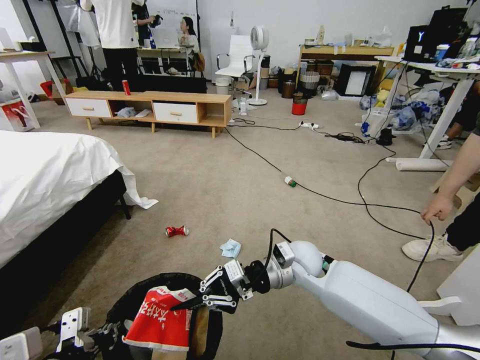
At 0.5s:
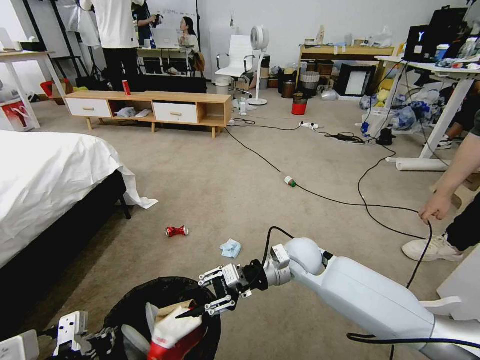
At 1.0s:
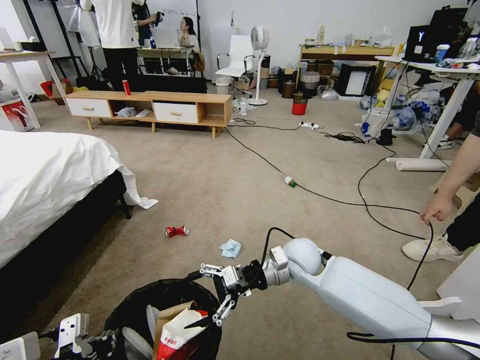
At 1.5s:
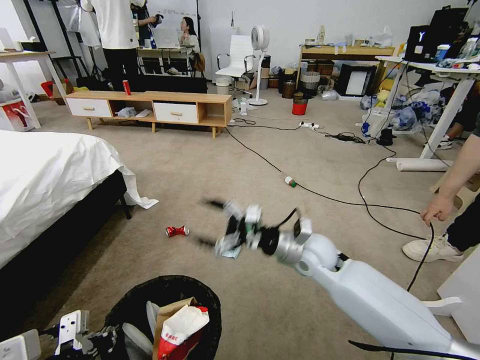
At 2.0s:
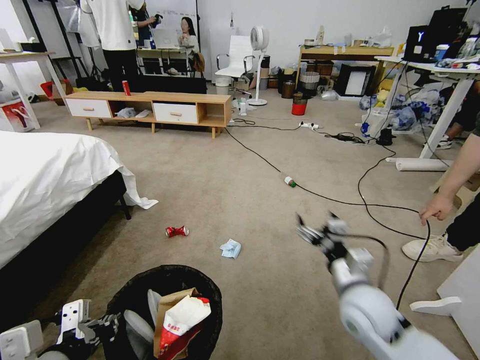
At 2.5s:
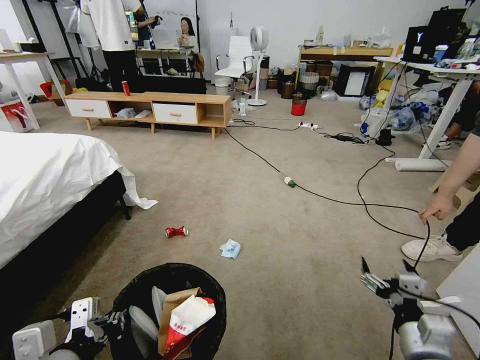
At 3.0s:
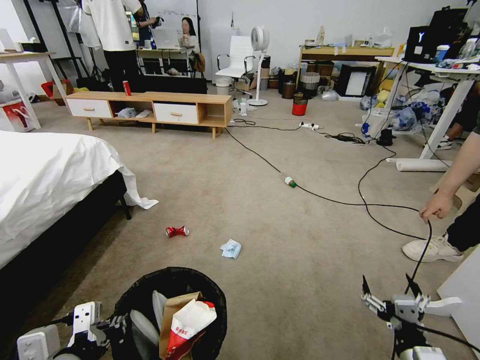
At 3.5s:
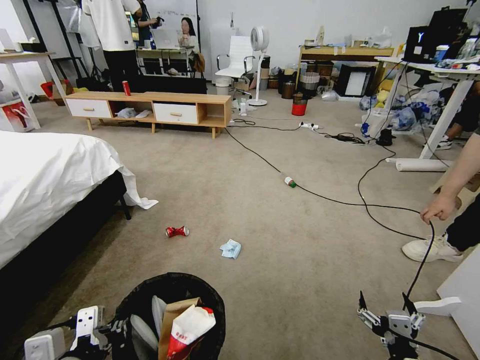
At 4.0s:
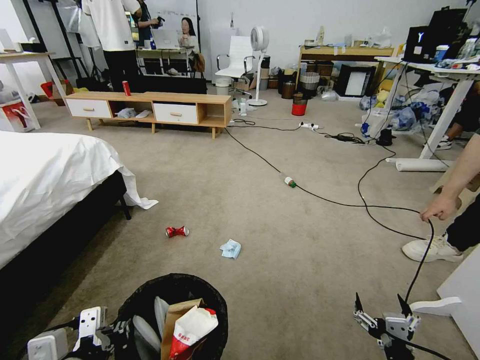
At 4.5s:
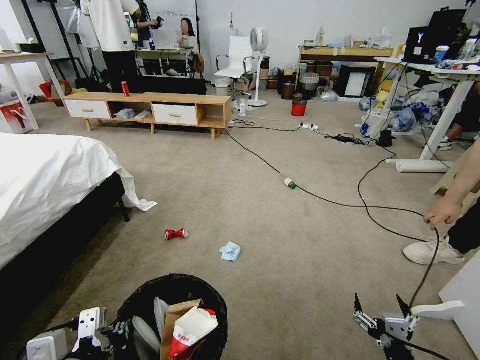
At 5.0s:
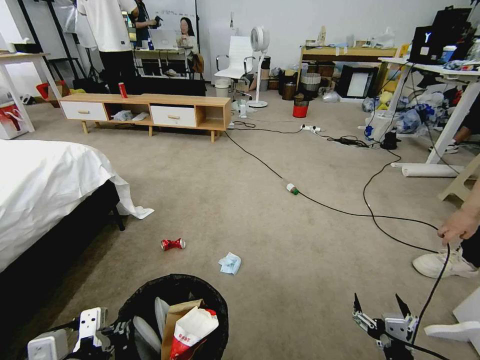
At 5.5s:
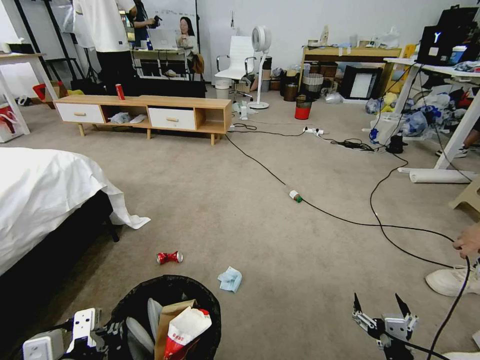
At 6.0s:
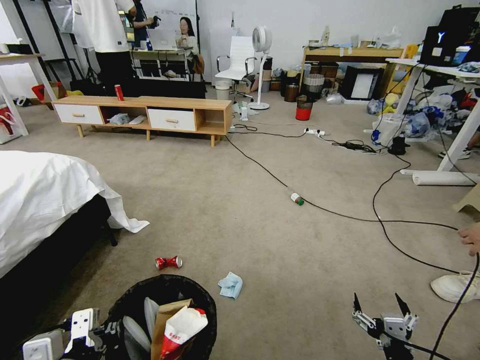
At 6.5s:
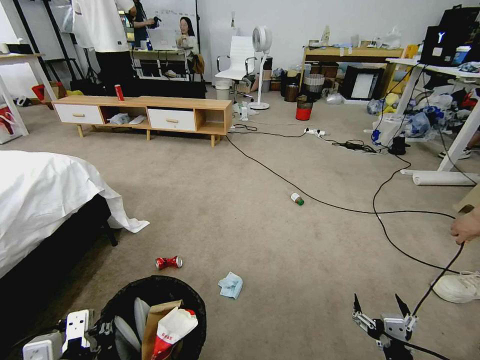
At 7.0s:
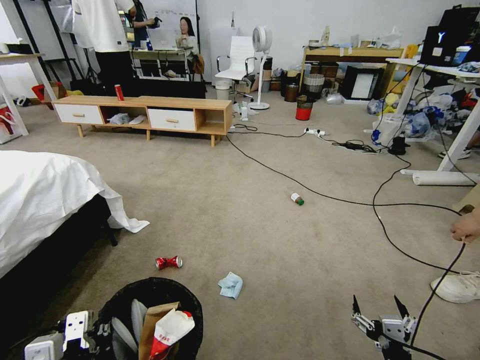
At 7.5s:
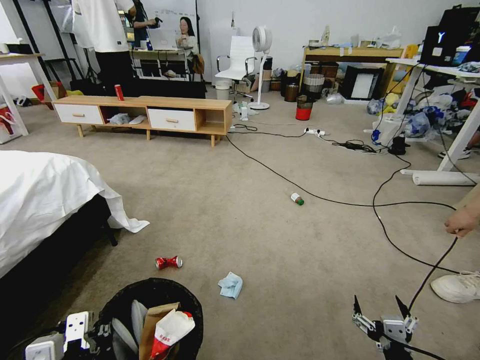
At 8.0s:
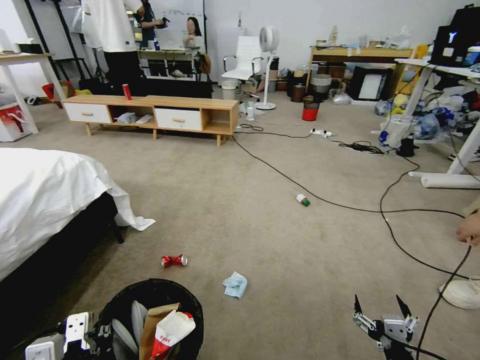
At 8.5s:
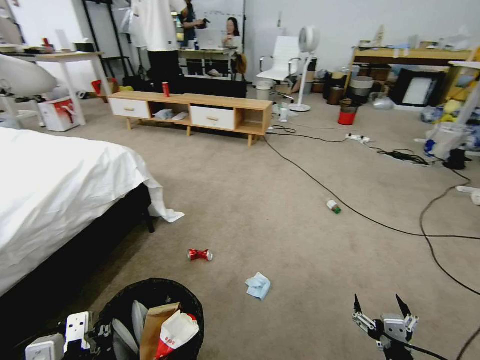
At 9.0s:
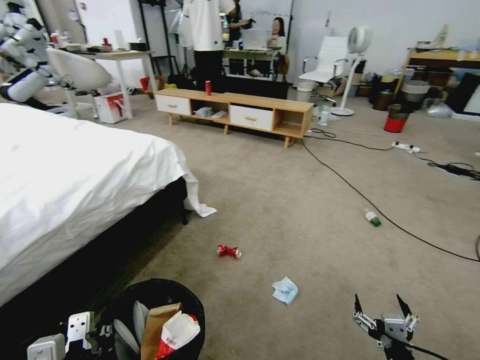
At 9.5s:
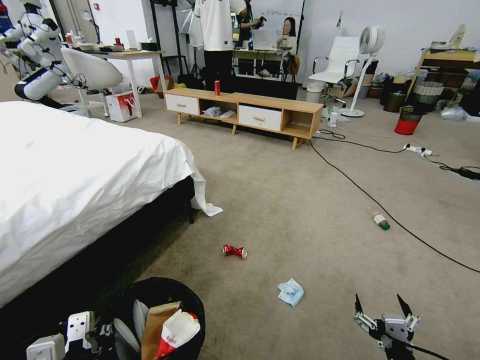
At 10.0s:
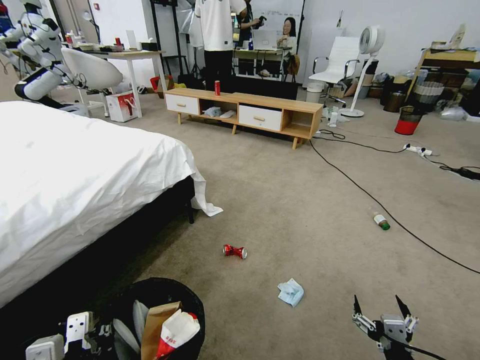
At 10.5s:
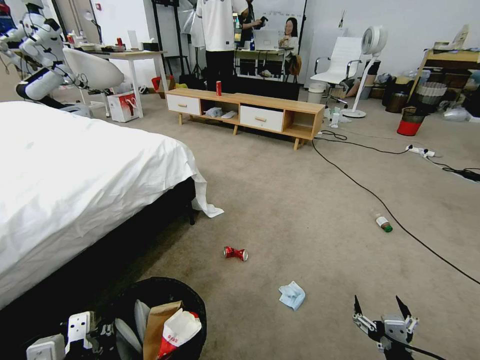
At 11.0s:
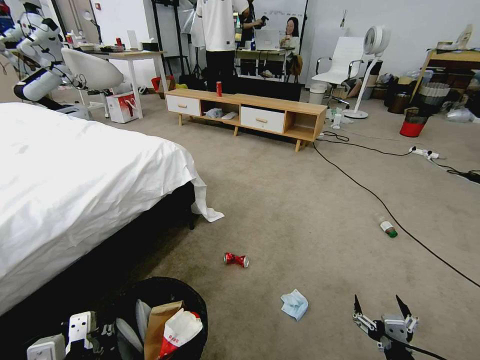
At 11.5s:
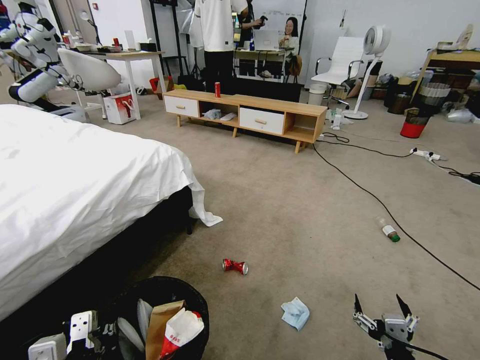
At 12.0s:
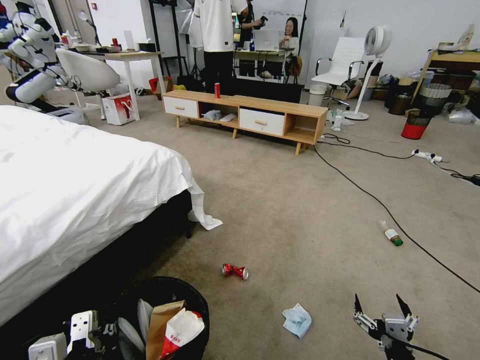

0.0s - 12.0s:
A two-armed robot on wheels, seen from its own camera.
Task of the whole recording: Pick up the trash bin and place the garbage on the floor into it.
0.0s - 2.0s: The right gripper goes about 15 cm to the right and backward, and opens.
2.0s - 4.0s: The right gripper moves backward, downward and to the right, approximately 20 cm.

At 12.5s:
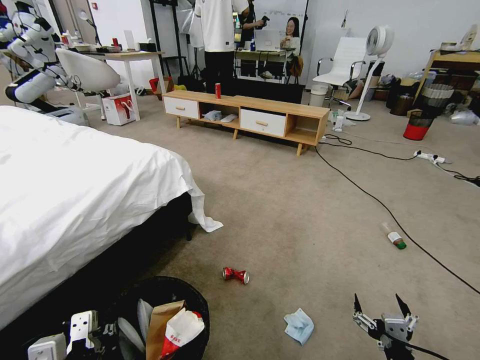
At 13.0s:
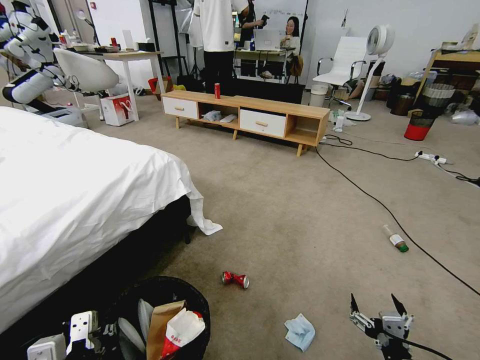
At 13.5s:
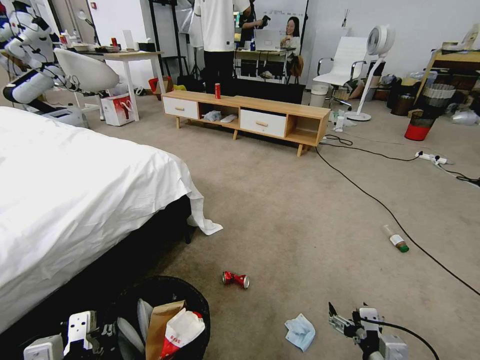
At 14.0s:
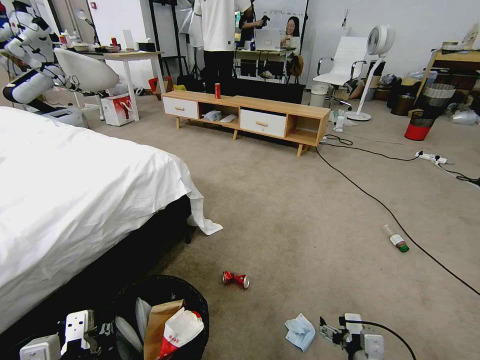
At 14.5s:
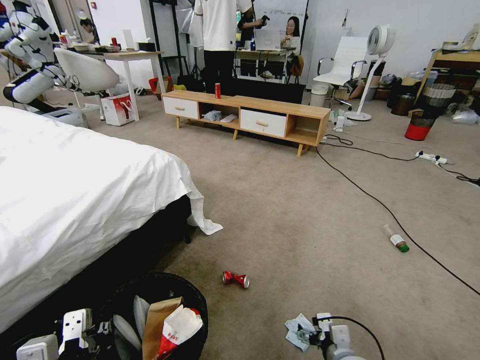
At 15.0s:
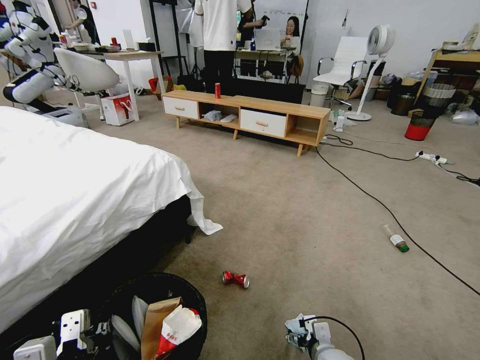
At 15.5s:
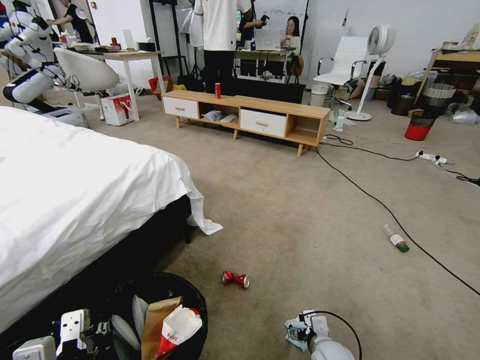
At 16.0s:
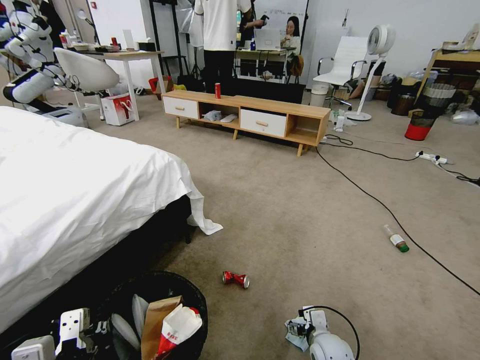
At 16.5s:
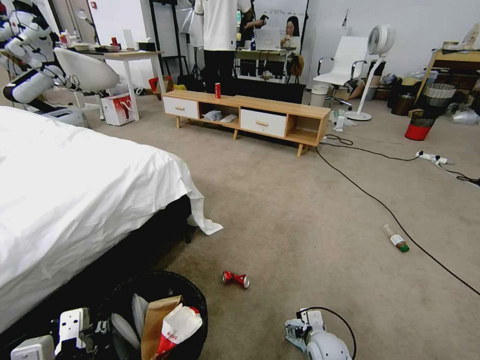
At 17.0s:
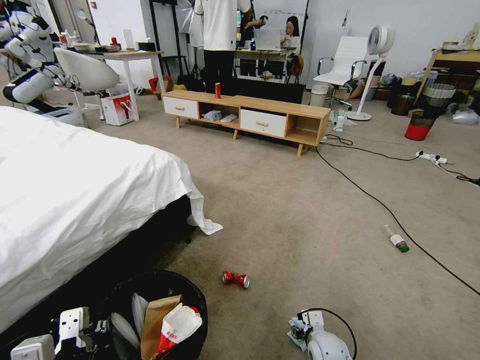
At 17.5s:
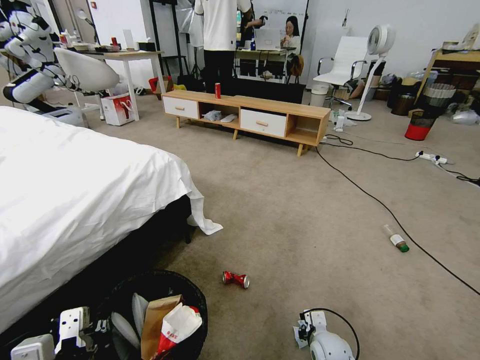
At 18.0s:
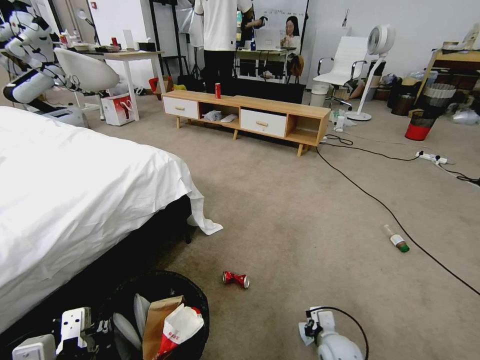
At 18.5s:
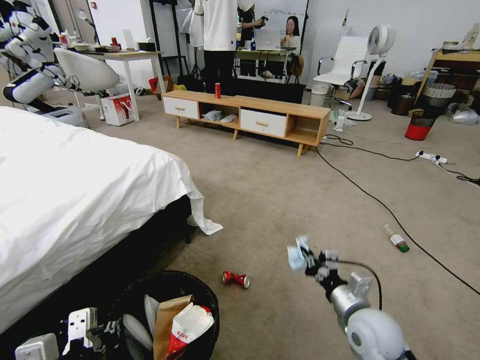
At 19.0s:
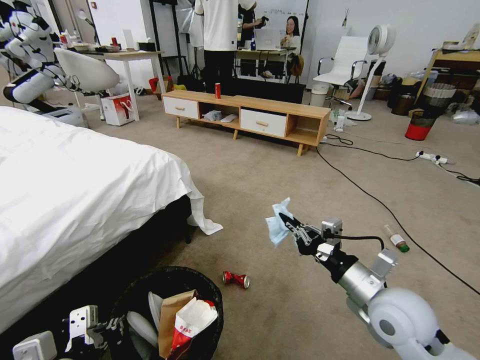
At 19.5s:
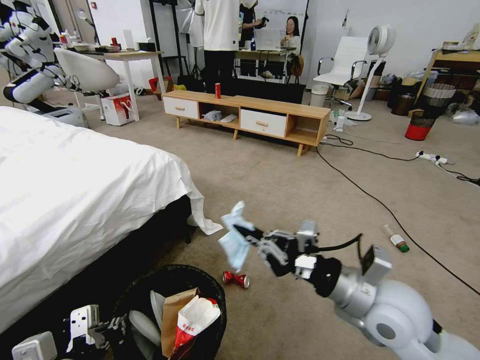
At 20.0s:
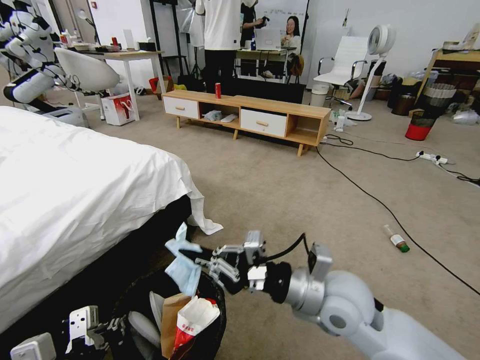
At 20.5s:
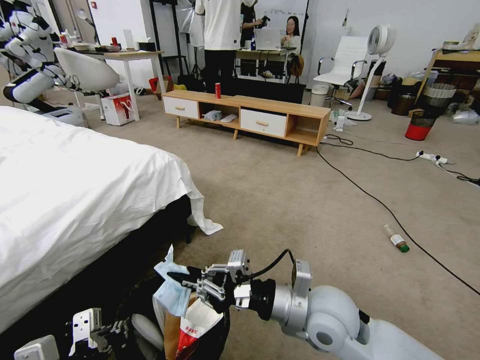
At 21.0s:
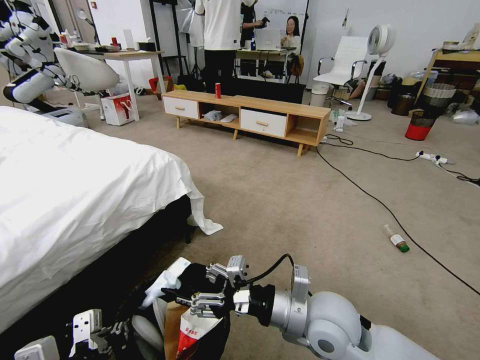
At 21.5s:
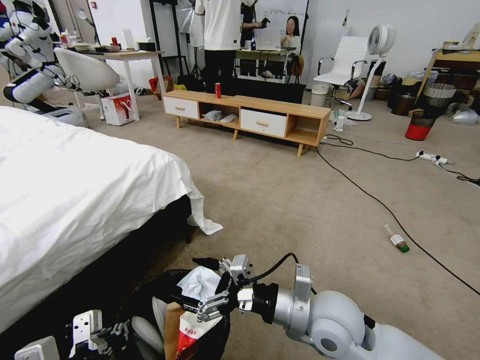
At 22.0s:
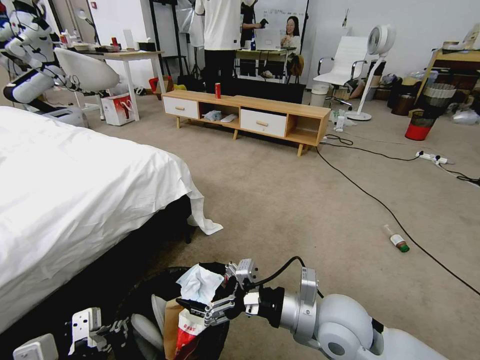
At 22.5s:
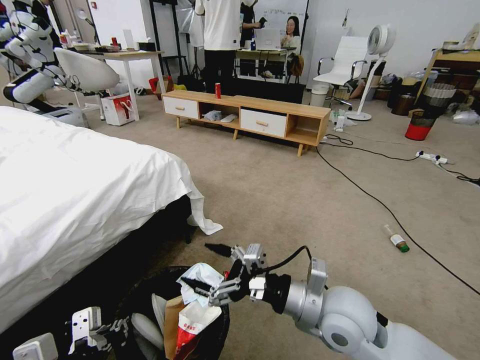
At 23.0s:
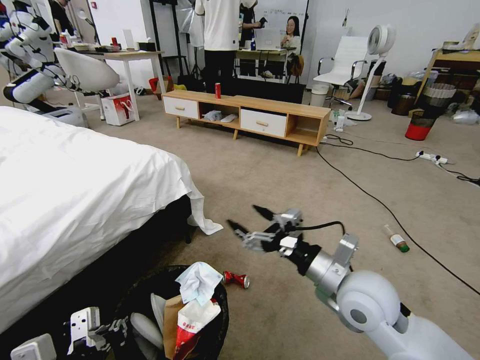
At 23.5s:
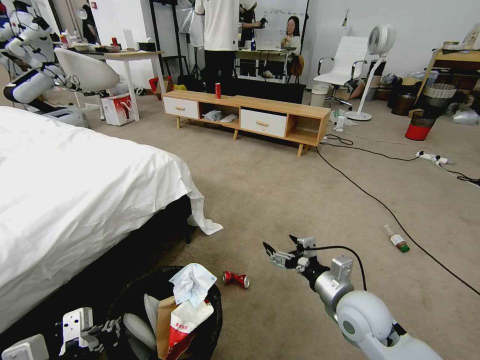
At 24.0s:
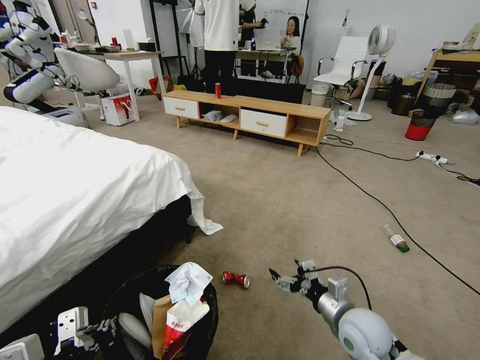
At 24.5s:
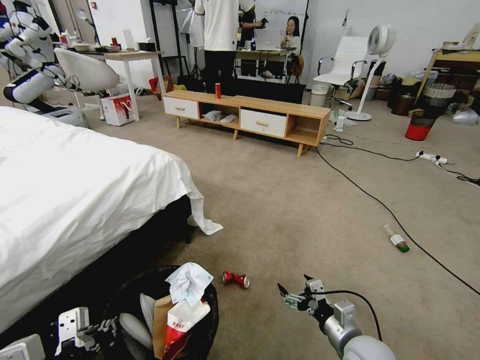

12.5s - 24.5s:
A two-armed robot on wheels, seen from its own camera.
Task of the whole recording: Pick up the trash bin and place the garbage on the floor into it.
12.5s - 14.5s: The right gripper travels forward, to the left and downward by roughly 15 cm.
14.5s - 16.5s: The right gripper is displaced forward and downward by roughly 10 cm.
16.5s - 18.5s: The right gripper shifts some 20 cm upward, and closes its fingers.
18.5s - 20.5s: The right gripper travels to the left and upward by some 15 cm.
20.5s - 22.5s: The right gripper opens.
22.5s - 24.5s: The right gripper travels downward and to the right by roughly 20 cm.

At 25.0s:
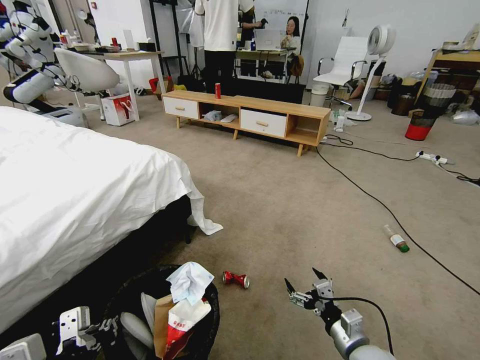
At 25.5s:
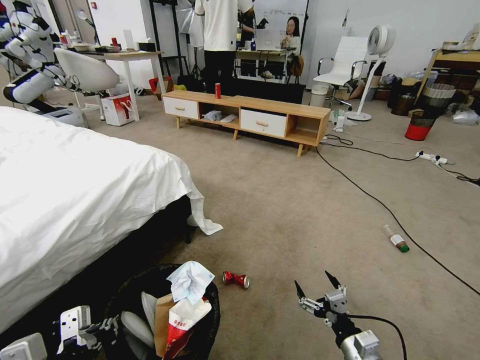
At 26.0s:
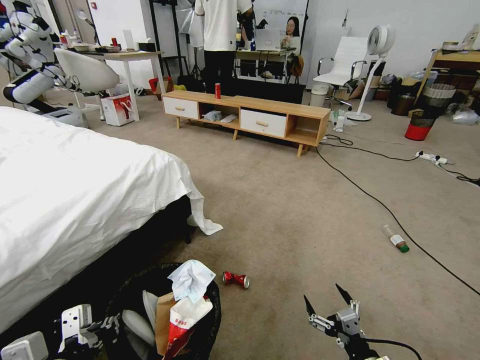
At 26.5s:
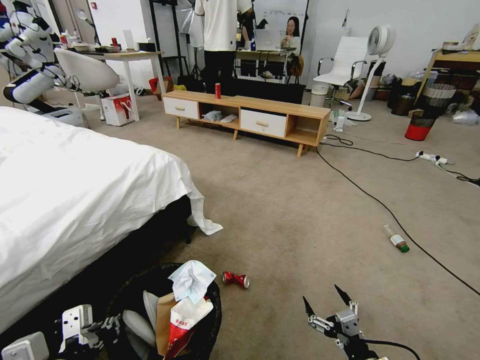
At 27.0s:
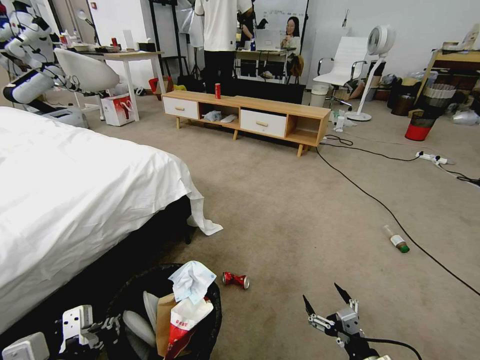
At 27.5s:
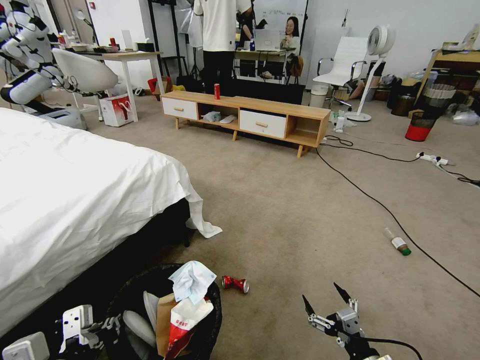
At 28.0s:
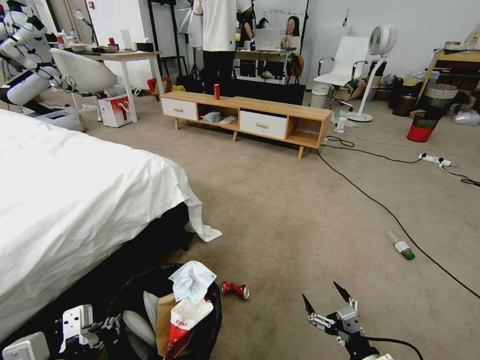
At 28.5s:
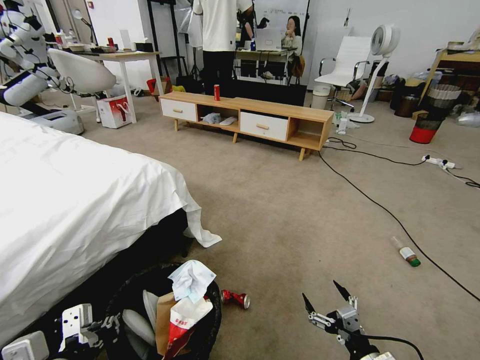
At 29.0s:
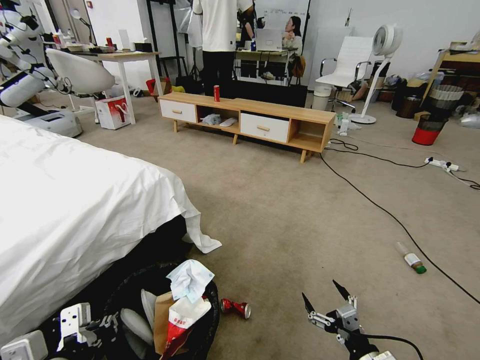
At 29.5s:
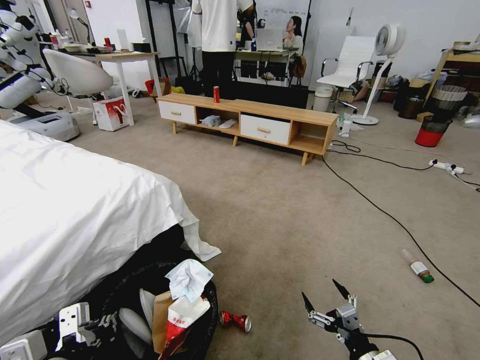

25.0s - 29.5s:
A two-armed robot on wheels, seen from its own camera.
Task of the whole recording: Pick up the trash bin and place the garbage on the floor into it.
25.0s - 27.0s: The right gripper goes about 10 cm backward.
